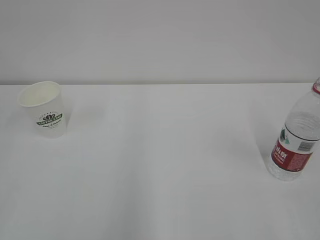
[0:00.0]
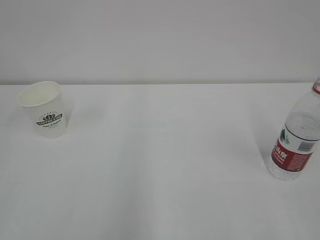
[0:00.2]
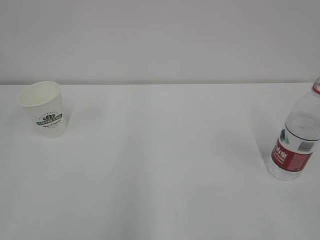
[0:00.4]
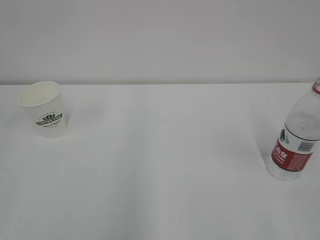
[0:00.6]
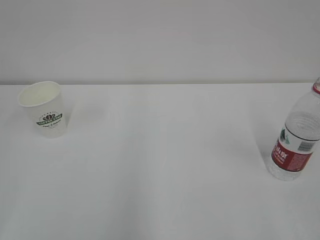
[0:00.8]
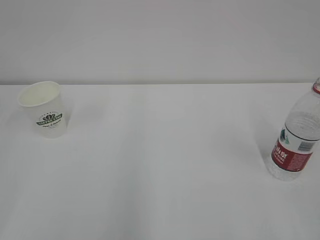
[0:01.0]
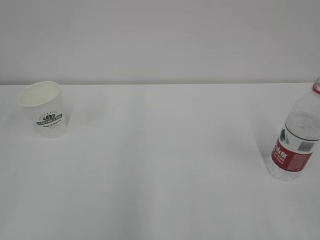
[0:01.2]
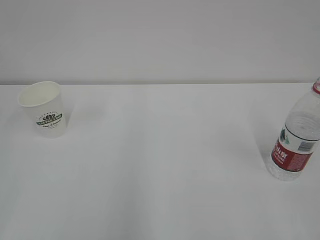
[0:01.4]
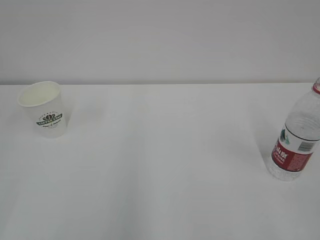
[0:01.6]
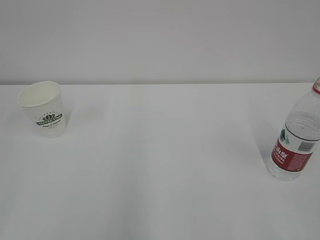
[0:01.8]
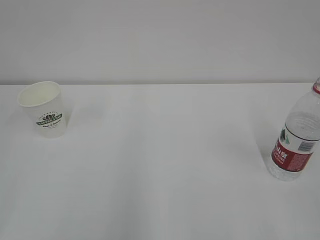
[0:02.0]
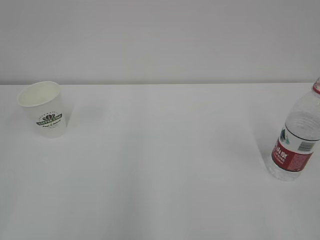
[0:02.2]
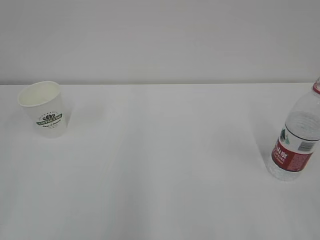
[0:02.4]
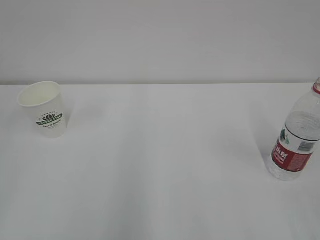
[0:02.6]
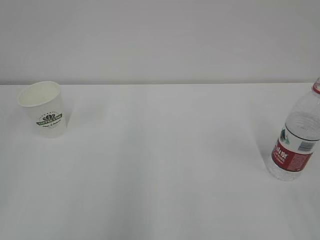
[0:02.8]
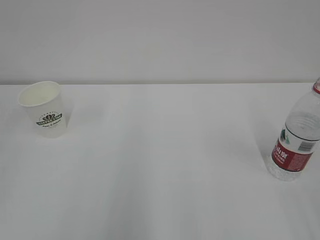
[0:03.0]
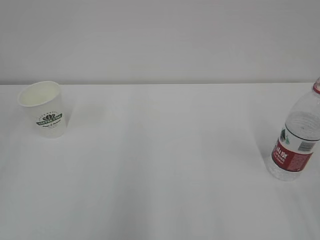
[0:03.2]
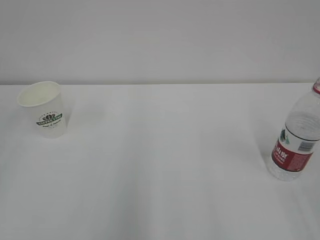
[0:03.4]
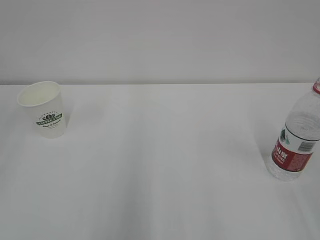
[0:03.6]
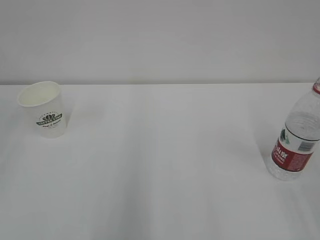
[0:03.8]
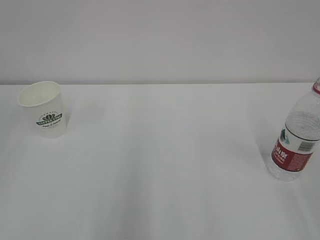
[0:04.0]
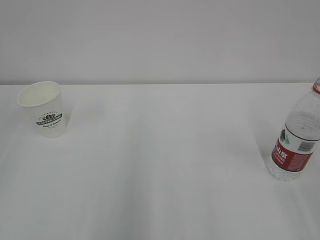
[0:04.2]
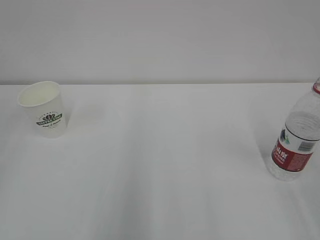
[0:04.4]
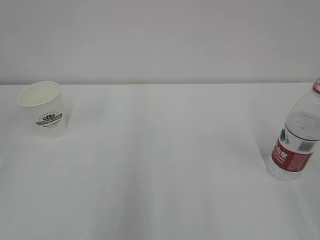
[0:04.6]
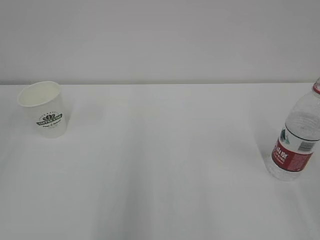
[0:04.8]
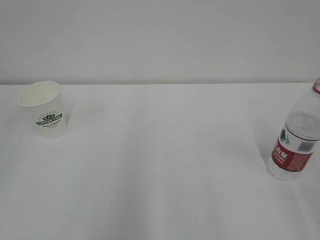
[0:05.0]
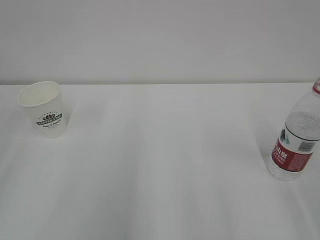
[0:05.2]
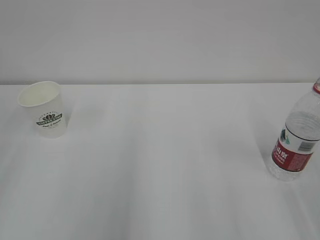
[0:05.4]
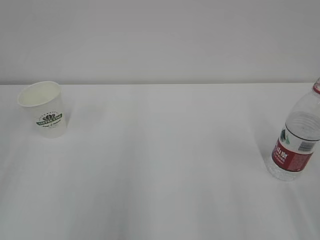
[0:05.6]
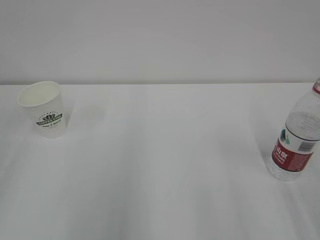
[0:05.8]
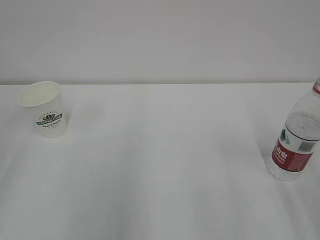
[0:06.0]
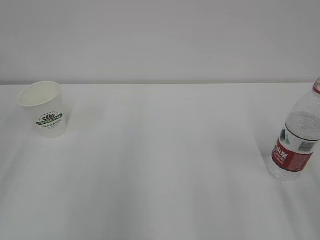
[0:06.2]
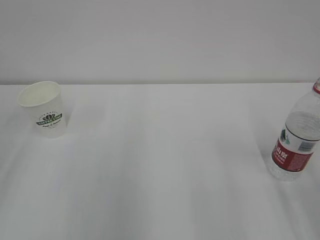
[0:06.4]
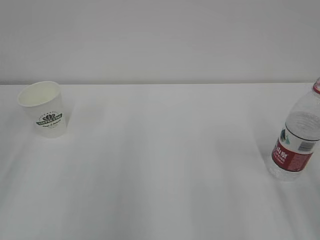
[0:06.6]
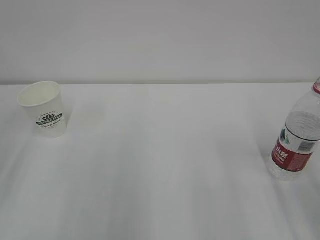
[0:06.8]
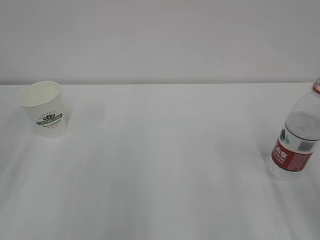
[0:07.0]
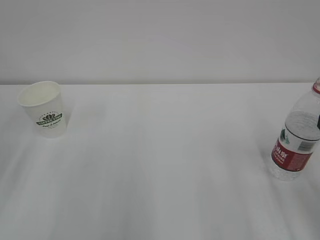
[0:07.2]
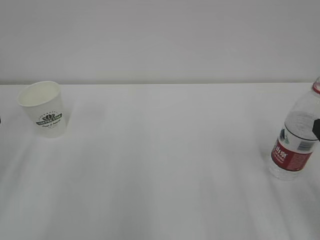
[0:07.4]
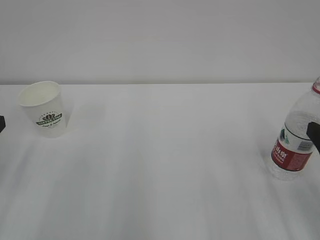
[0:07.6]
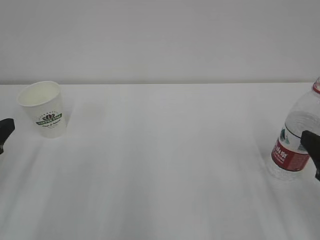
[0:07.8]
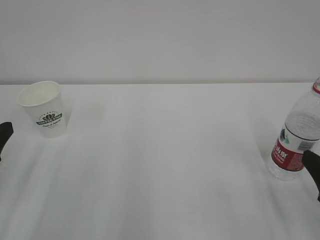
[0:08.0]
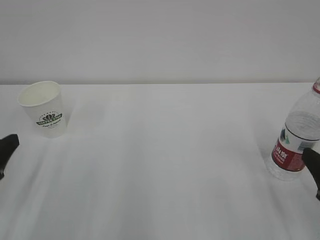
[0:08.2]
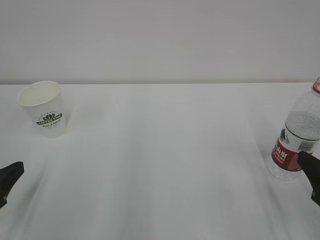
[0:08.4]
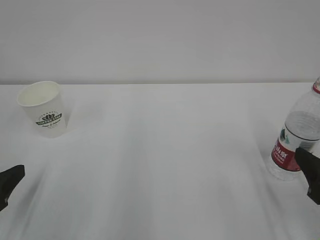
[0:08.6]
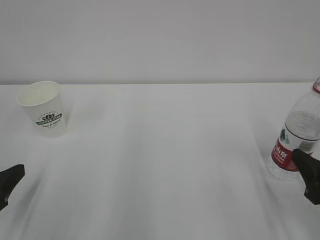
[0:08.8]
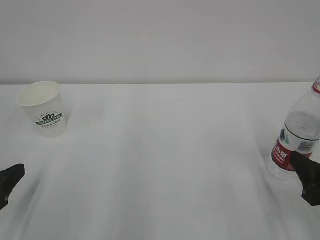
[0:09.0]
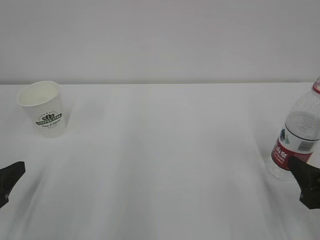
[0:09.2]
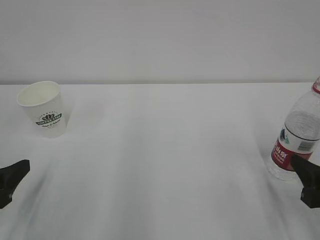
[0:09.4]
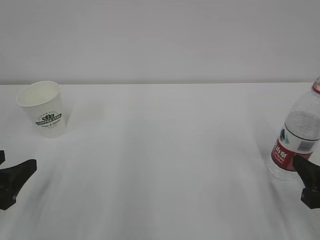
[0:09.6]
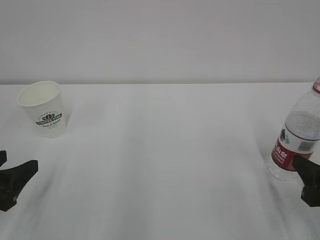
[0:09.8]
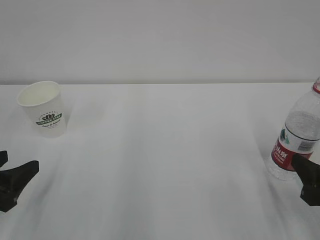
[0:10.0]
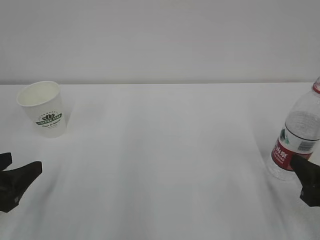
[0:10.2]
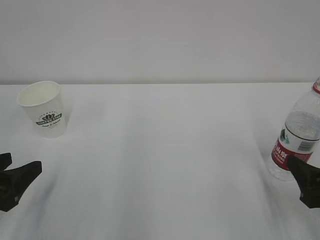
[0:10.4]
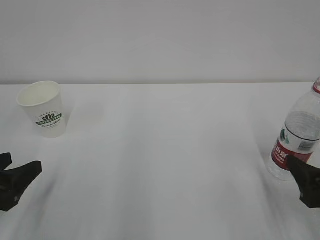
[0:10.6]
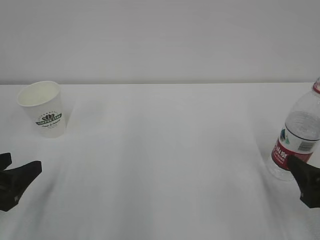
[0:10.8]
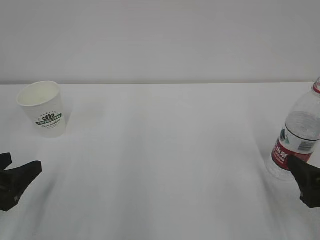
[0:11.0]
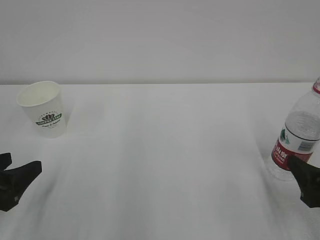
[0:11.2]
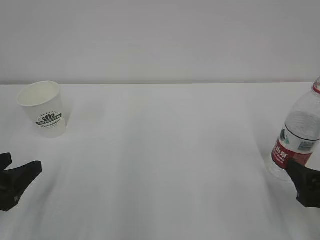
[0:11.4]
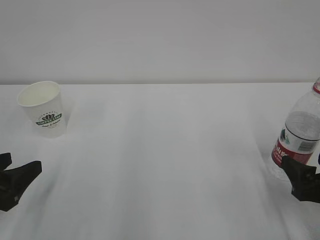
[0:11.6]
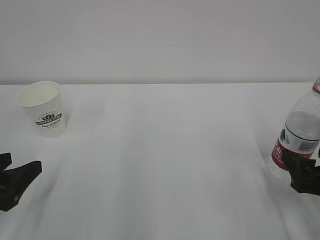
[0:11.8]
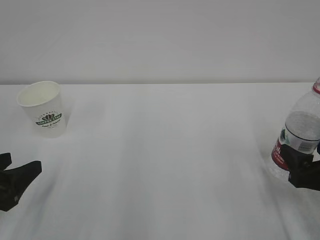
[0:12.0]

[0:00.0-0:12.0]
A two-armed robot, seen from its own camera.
0:07.6 to 0:09.0: The two grippers go roughly 5 cm downward.
0:10.4 to 0:12.0: The grippers move only a little.

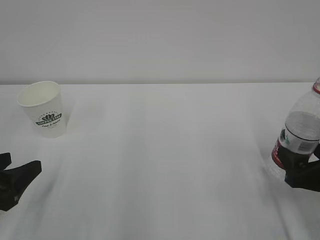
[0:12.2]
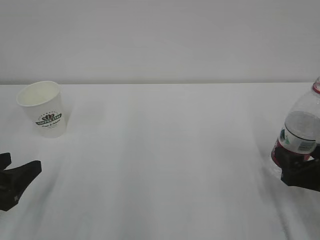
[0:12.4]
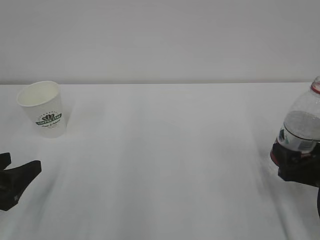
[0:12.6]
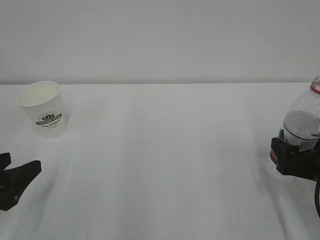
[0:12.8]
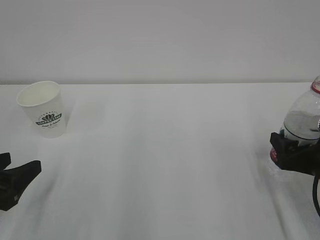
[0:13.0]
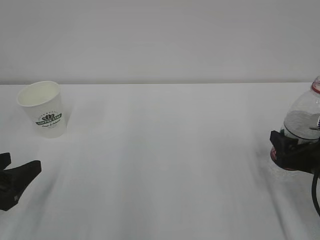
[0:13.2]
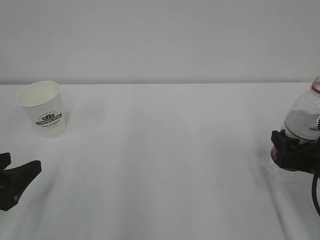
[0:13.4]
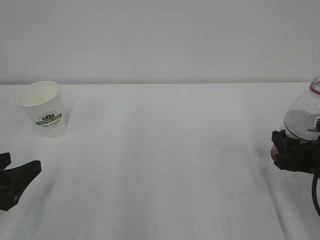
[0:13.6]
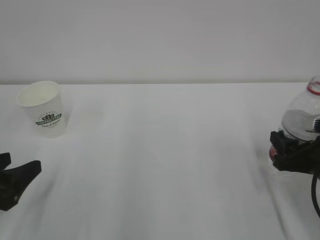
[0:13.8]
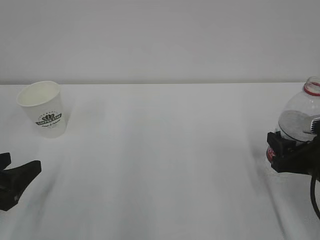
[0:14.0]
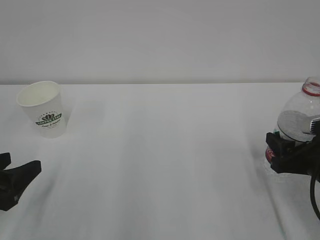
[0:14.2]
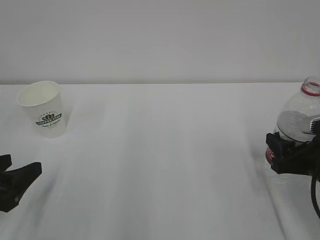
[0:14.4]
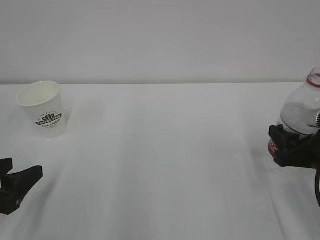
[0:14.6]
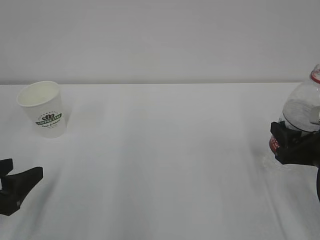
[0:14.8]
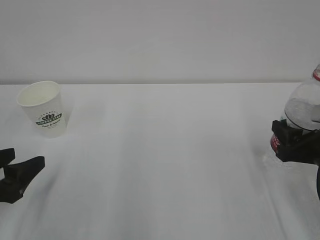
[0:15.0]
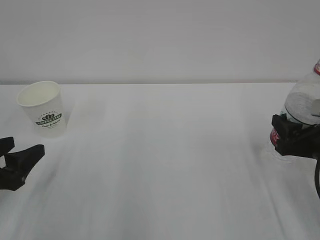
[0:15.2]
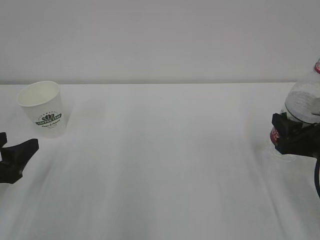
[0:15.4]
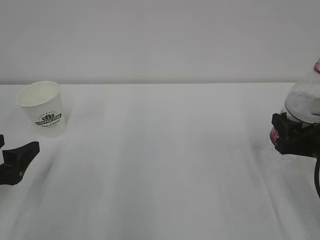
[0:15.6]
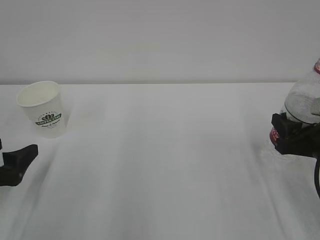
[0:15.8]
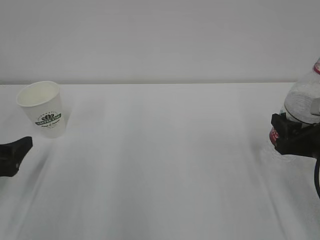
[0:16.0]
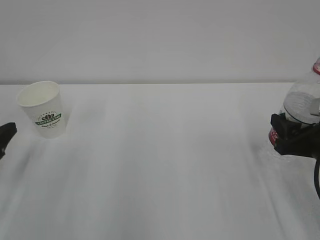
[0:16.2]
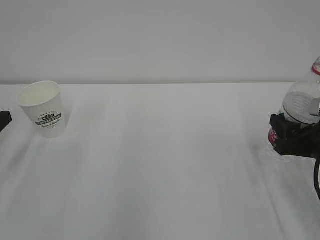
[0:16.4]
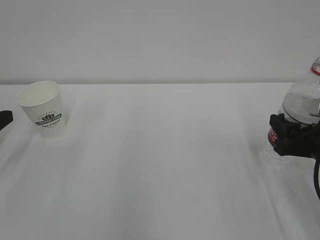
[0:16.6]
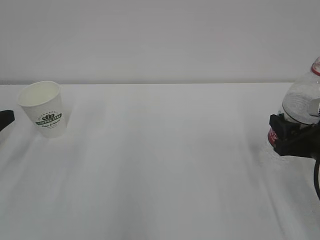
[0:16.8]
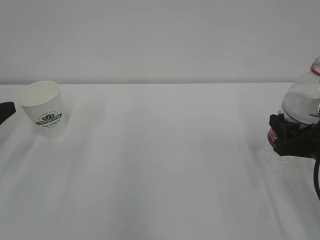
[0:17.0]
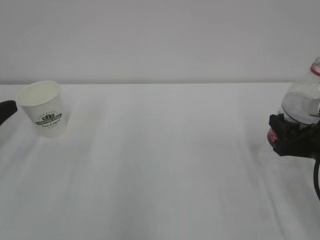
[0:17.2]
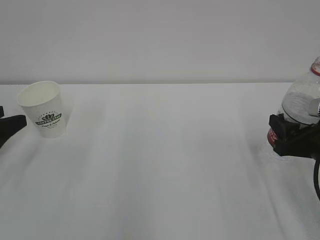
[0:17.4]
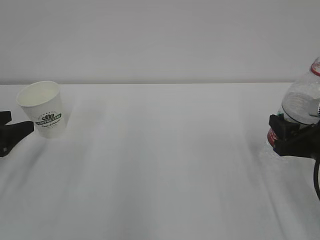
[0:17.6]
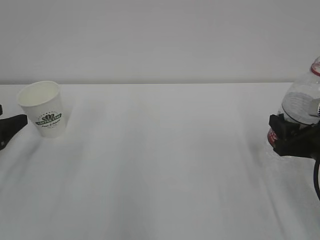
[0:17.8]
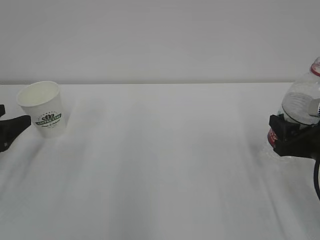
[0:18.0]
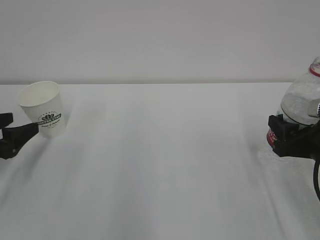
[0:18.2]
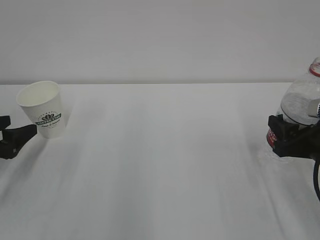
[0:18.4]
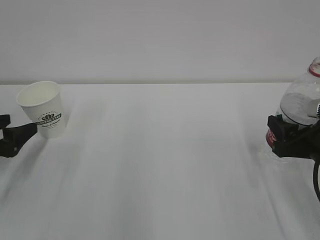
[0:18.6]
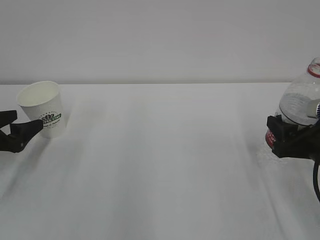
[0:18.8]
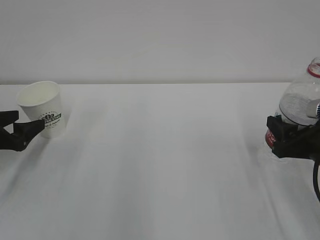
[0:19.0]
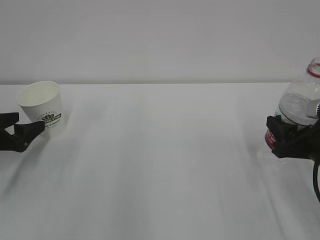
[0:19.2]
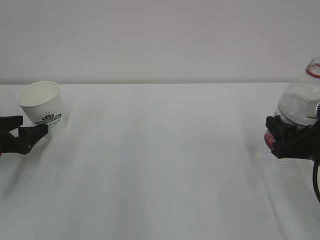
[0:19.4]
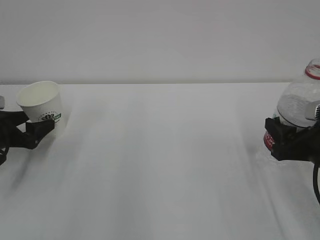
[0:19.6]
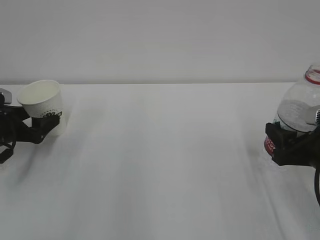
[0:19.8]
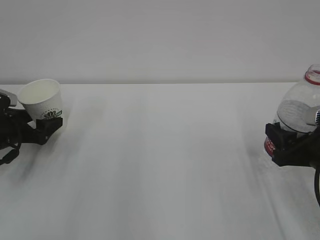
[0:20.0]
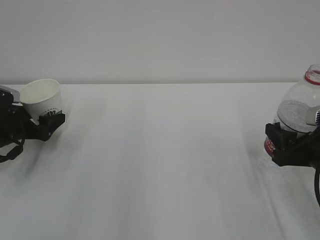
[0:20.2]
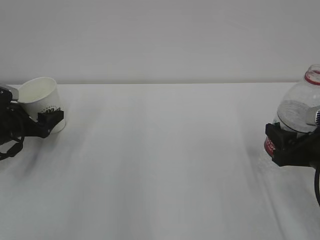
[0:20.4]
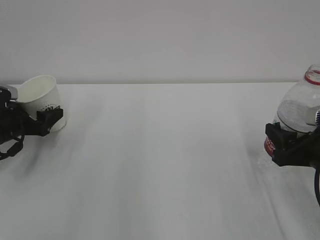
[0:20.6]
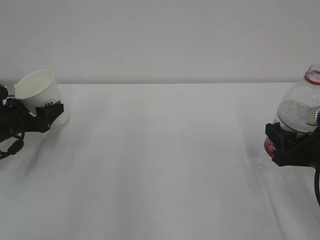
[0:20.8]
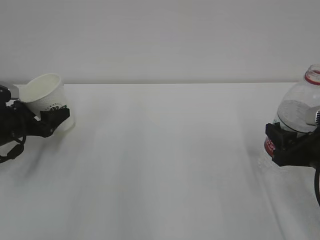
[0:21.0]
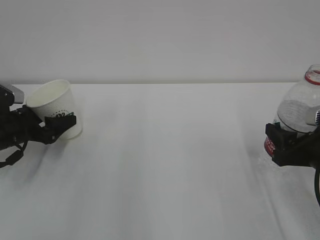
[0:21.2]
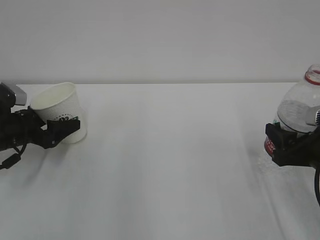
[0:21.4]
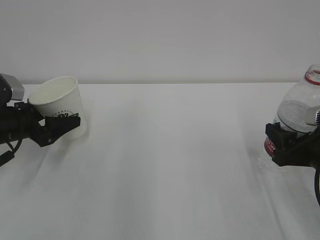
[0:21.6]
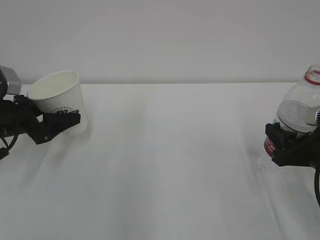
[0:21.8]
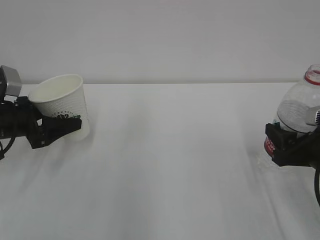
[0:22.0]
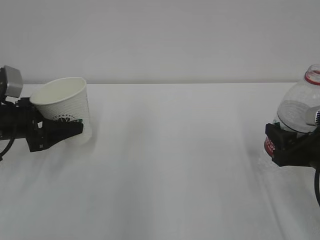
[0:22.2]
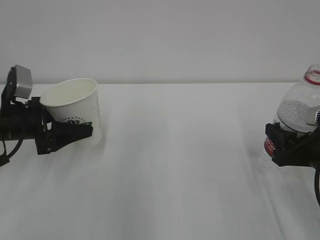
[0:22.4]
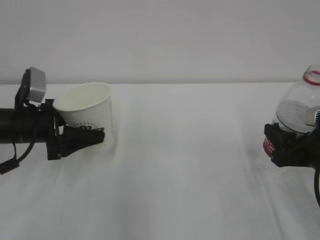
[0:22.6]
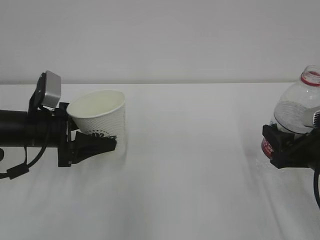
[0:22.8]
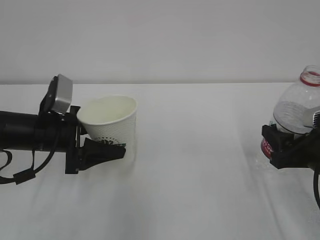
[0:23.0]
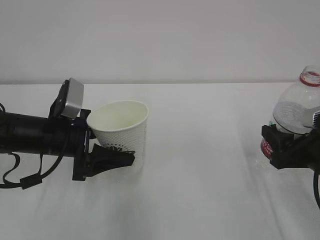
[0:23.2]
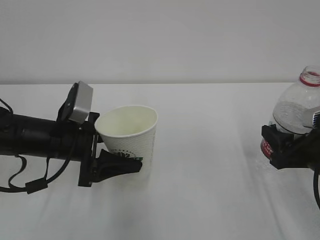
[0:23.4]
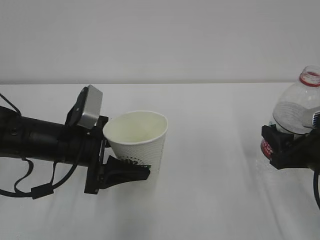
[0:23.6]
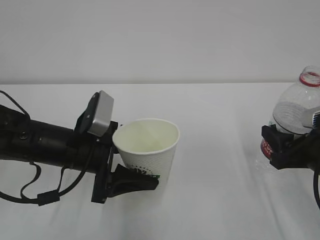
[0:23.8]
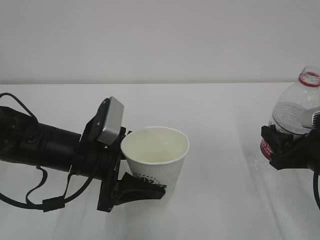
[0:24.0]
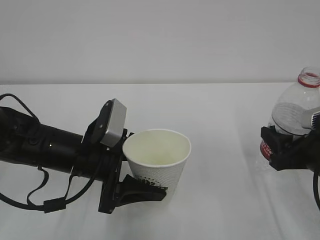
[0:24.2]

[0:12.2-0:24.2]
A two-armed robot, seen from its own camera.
0:12.2 to 0:13.8: The right gripper closes.
0:13.8 to 0:15.2: The grippers make only small movements.
0:15.2 to 0:16.6: The left gripper travels to the left and forward by some 10 cm.
0:16.6 to 0:18.2: The grippers make only small movements.
0:18.2 to 0:19.8: The left gripper travels forward by some 5 cm.
0:19.8 to 0:21.2: The grippers stay close to where they were, moving slightly.
0:21.2 to 0:22.6: The left gripper shifts roughly 10 cm to the right and upward.
0:22.6 to 0:24.2: The left gripper is displaced to the right and backward by about 15 cm.
